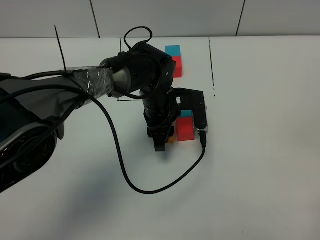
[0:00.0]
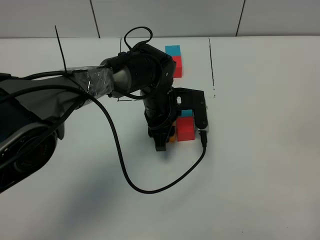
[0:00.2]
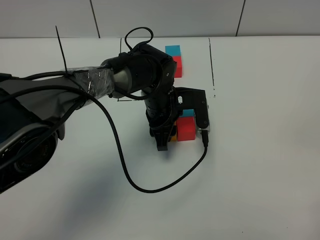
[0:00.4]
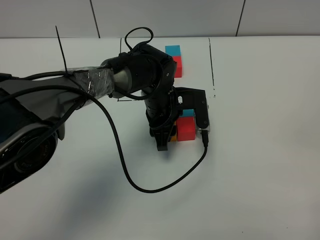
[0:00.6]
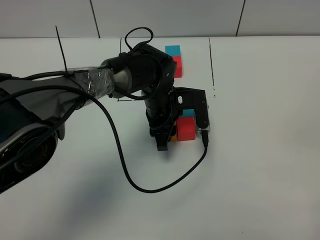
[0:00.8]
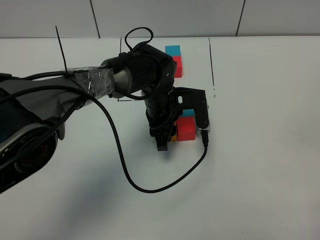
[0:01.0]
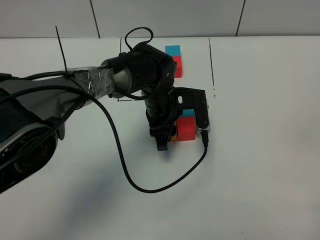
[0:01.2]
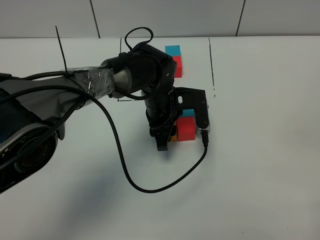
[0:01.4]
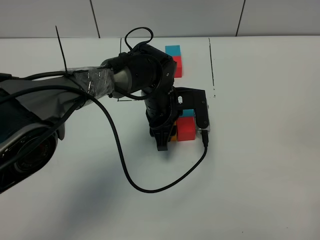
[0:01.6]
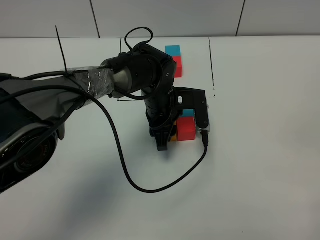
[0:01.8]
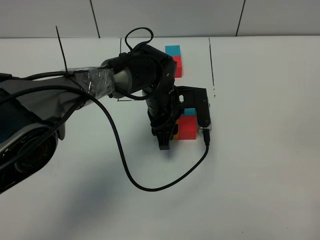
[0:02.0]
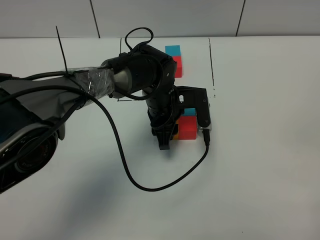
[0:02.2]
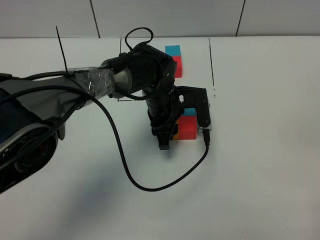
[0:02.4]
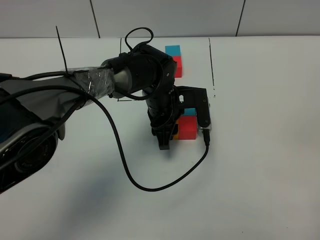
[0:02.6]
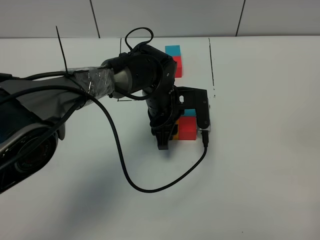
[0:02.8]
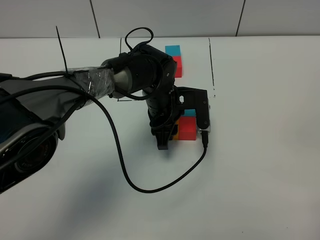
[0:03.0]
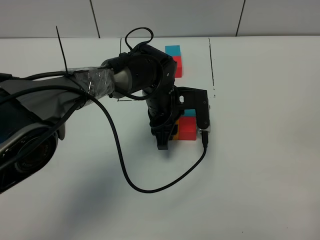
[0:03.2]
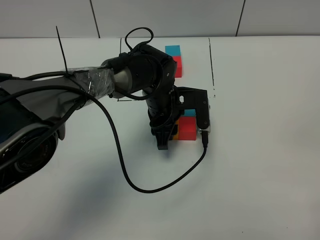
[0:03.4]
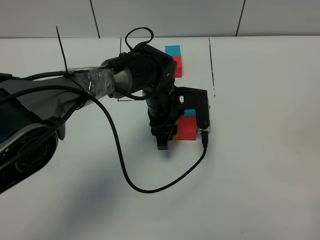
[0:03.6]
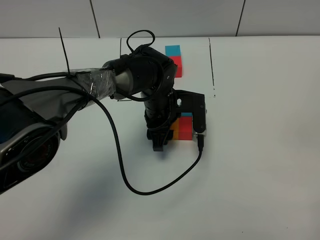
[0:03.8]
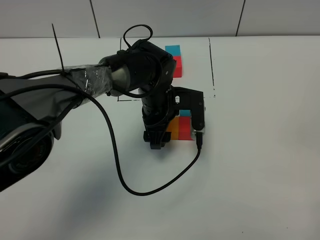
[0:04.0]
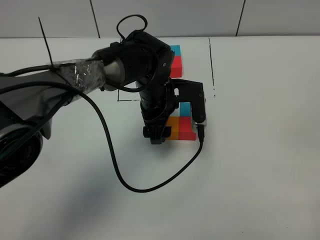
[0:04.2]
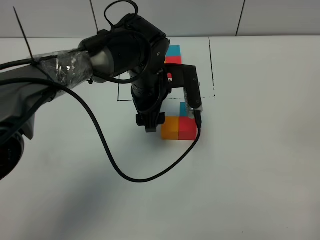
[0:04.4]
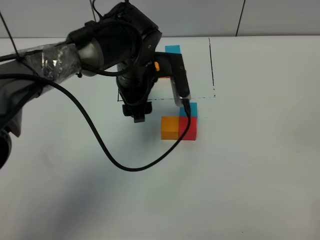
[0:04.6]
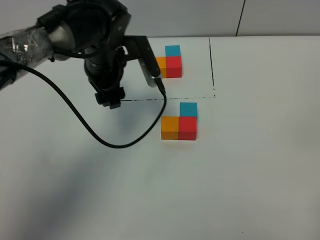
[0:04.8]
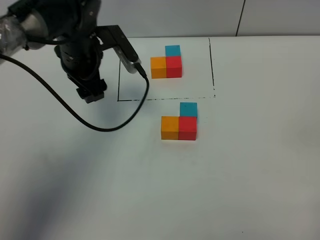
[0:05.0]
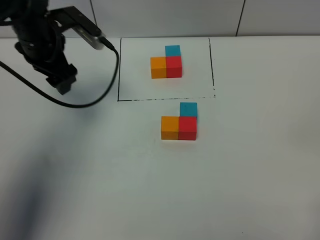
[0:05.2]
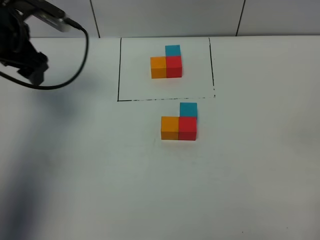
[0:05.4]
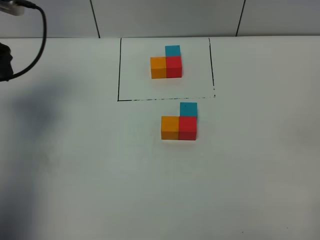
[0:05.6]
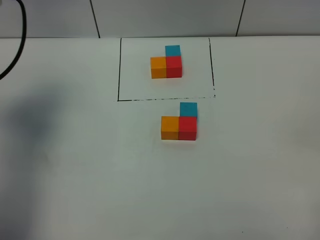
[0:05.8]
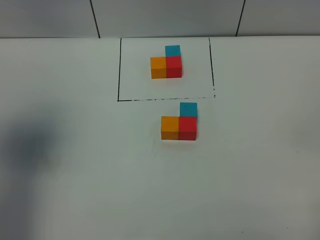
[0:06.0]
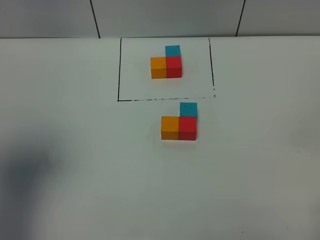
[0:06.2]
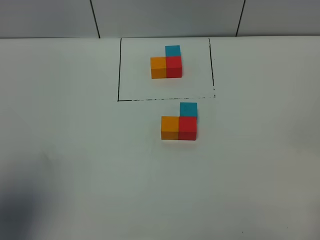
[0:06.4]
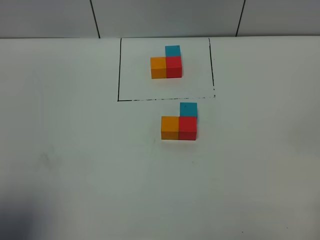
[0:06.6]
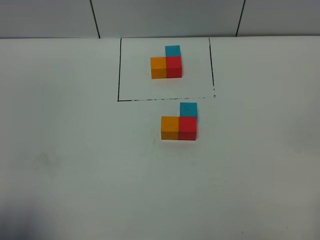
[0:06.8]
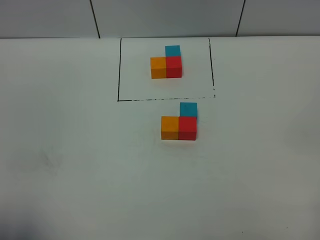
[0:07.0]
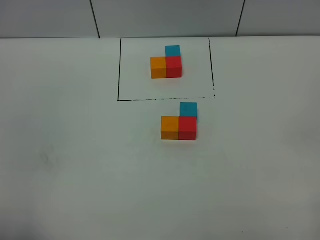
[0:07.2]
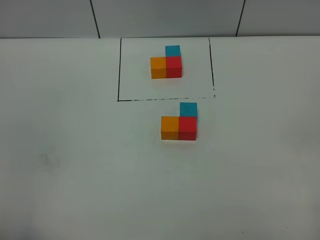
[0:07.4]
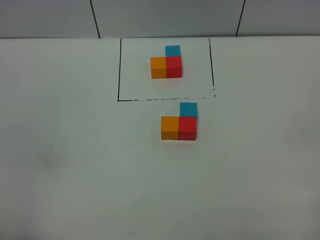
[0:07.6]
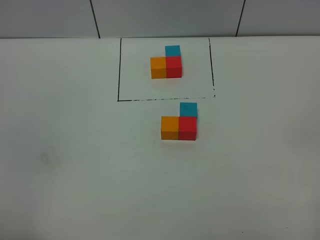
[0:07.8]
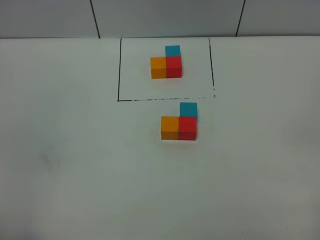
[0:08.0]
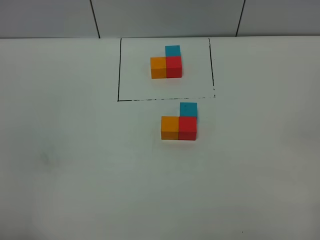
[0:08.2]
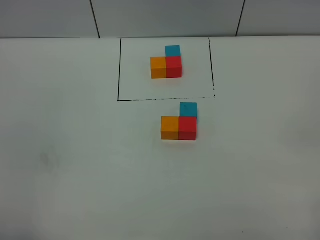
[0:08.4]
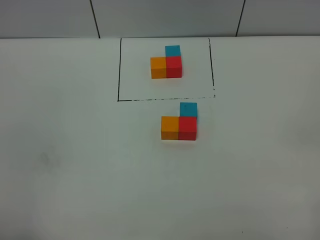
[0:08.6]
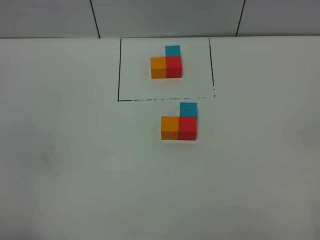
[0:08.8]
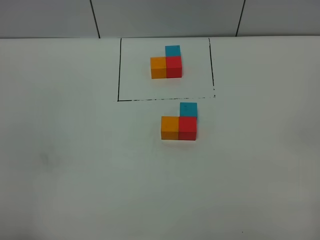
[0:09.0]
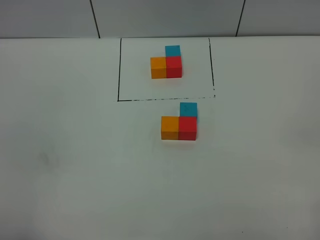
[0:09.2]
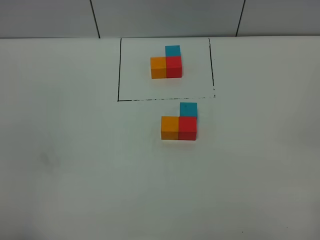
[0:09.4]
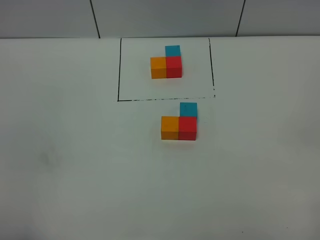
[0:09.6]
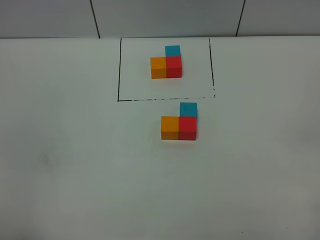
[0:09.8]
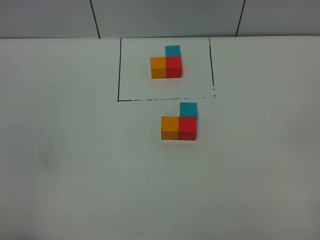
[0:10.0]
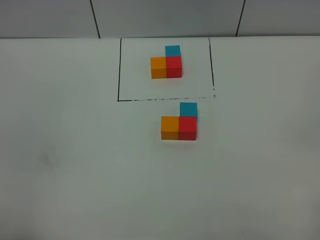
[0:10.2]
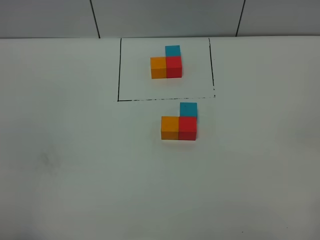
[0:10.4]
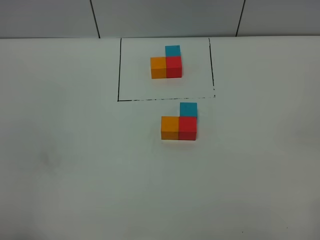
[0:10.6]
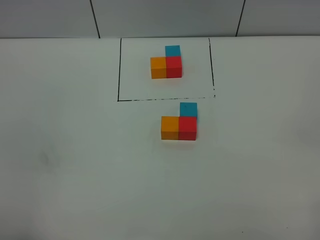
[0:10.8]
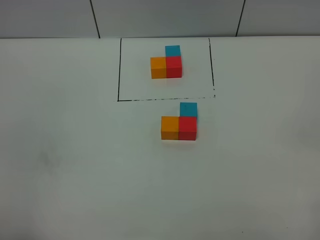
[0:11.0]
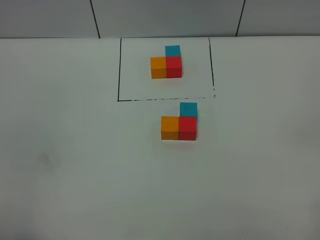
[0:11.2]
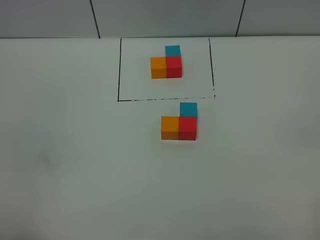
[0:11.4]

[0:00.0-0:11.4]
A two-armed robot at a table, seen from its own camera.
Task of the whole recording: According to the building block template in front, assemble the scattered blocks together.
Step, 0:00.0 to 0:03.8: Put the orange build block on the left of the red build block.
0:00.0 to 0:02.8: The two grippers keep their place.
0:02.8 to 0:04.2: The left gripper opens up.
0:04.2 to 0:05.6: The left gripper goes some 35 cm to the left and upward.
0:05.6 to 0:07.2: The left gripper travels backward by about 35 cm.
0:08.6 to 0:11.4: Neither gripper changes place.
